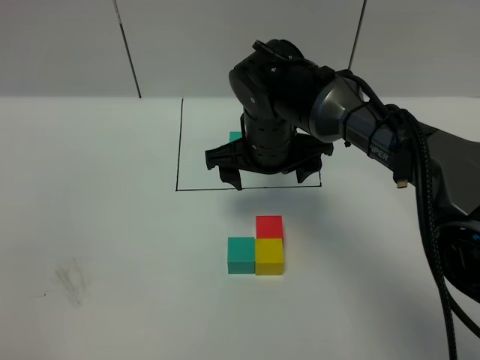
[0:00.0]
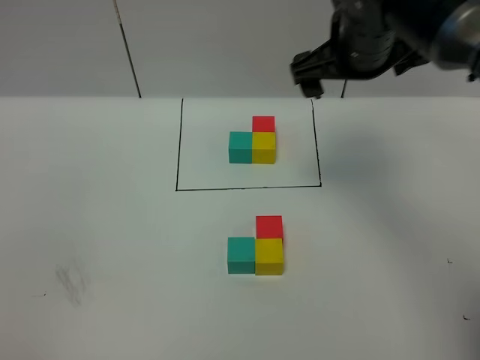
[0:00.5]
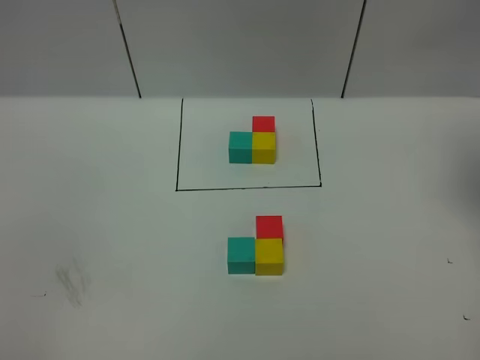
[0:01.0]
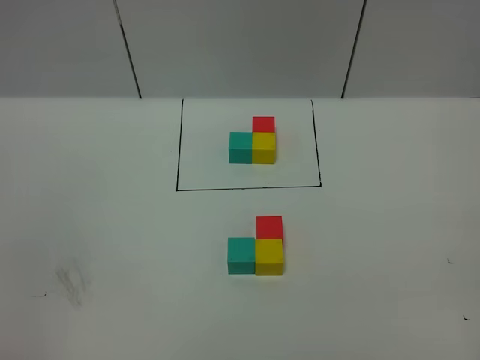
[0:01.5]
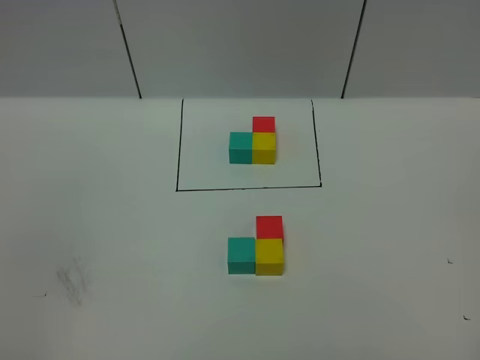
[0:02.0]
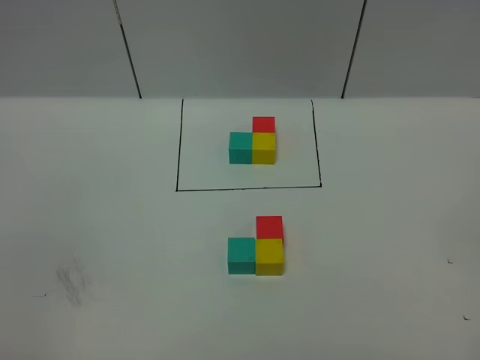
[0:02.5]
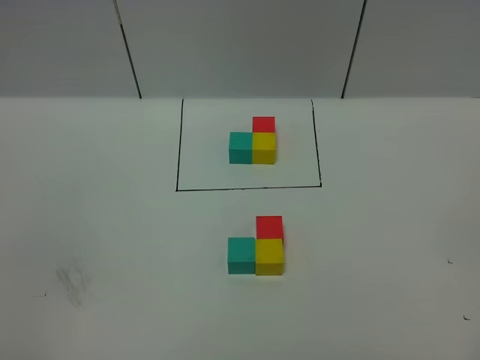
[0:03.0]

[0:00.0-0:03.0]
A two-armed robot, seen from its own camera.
Task of the whole recording: According to the building block template in front, assemble the scattered blocks together.
0:00.0 to 0:01.5: The right gripper heads to the right, backward and upward, covering about 40 cm.

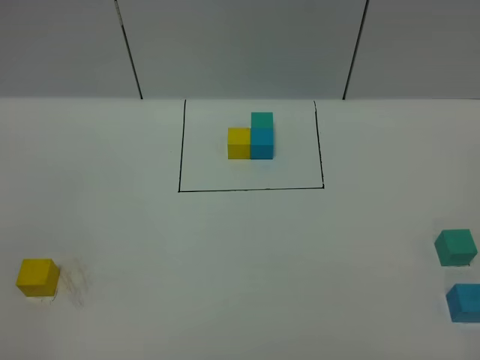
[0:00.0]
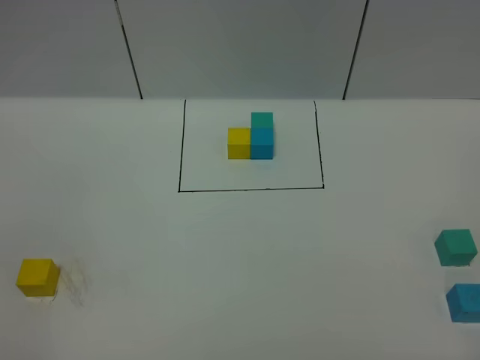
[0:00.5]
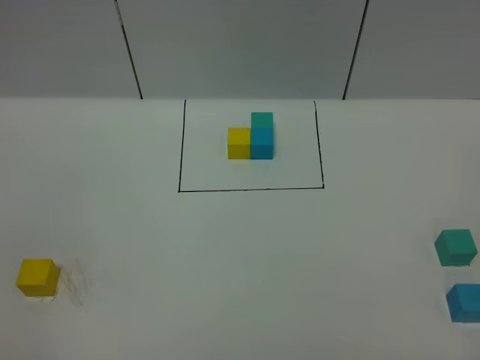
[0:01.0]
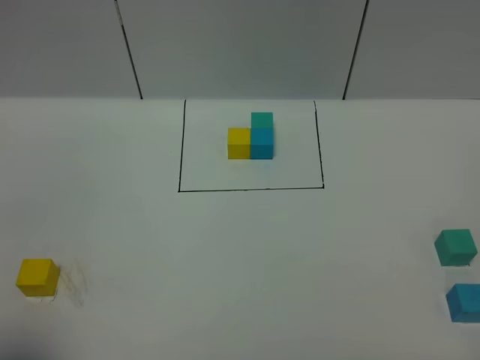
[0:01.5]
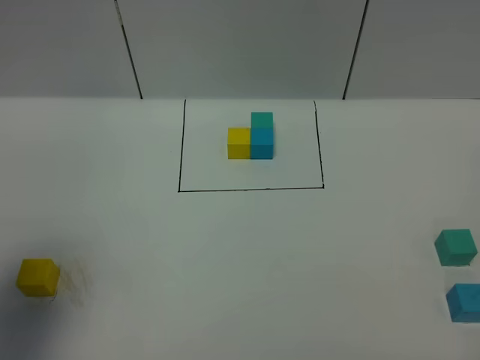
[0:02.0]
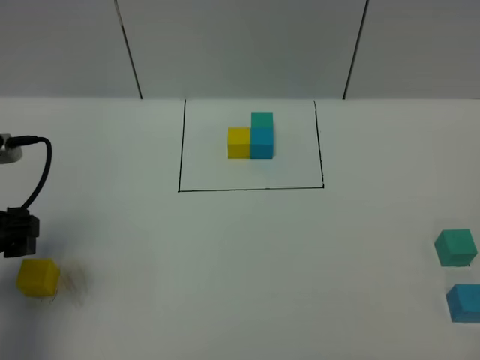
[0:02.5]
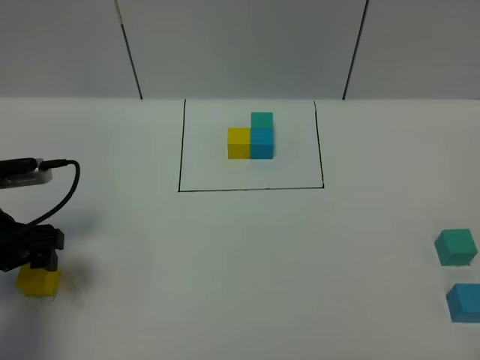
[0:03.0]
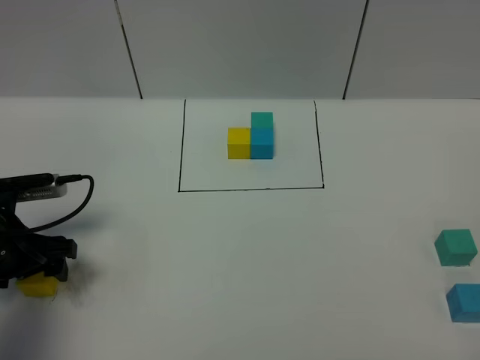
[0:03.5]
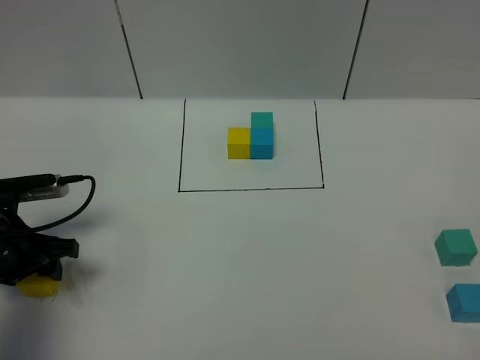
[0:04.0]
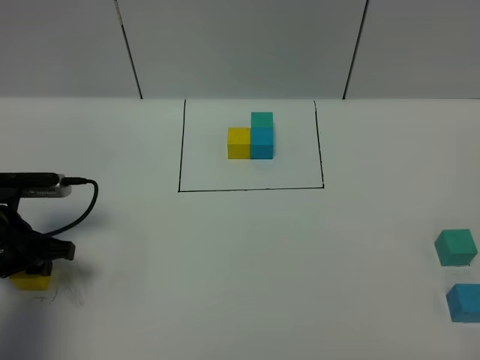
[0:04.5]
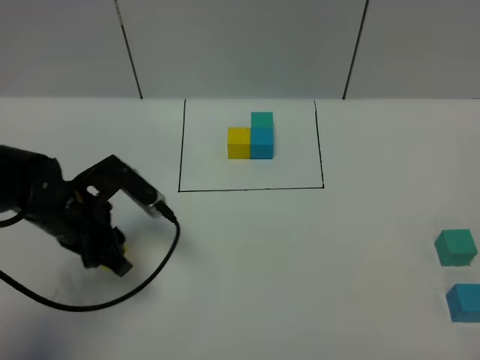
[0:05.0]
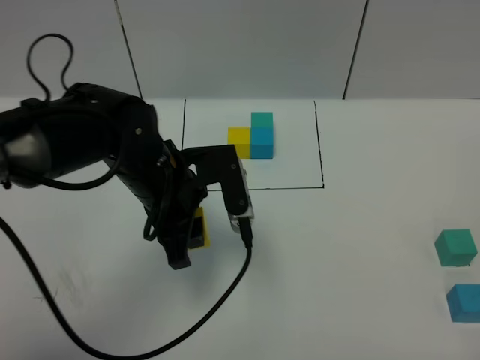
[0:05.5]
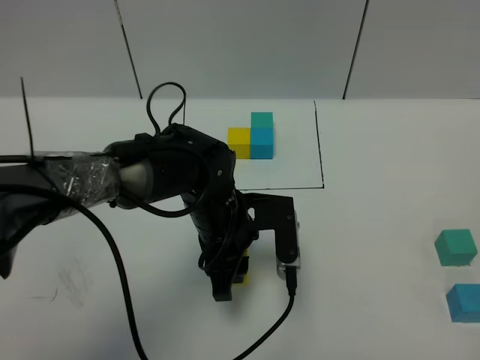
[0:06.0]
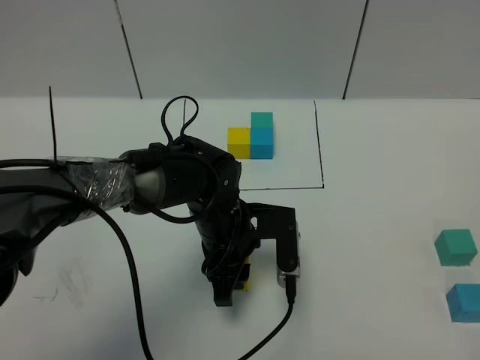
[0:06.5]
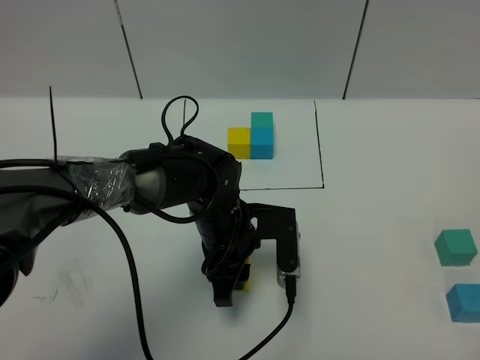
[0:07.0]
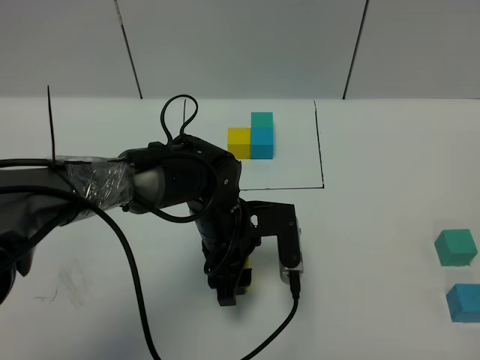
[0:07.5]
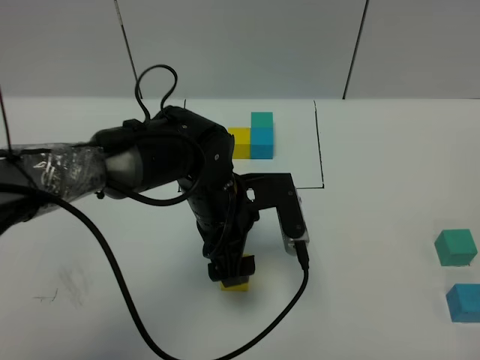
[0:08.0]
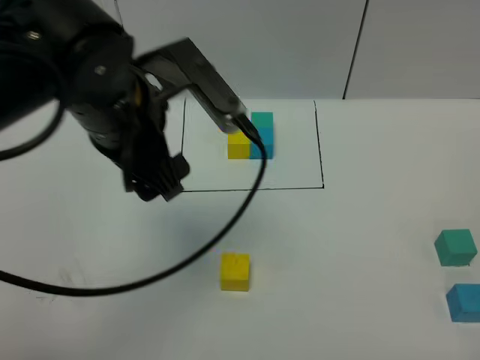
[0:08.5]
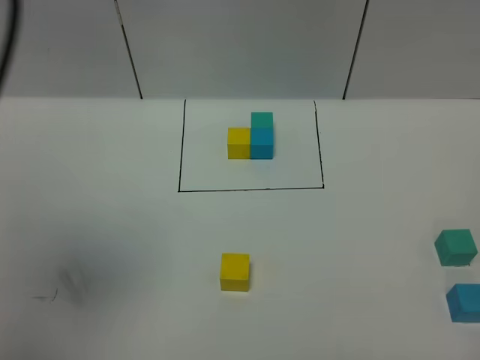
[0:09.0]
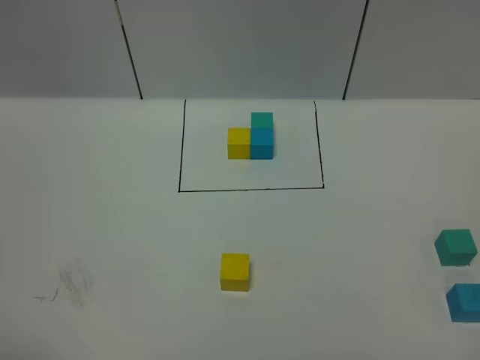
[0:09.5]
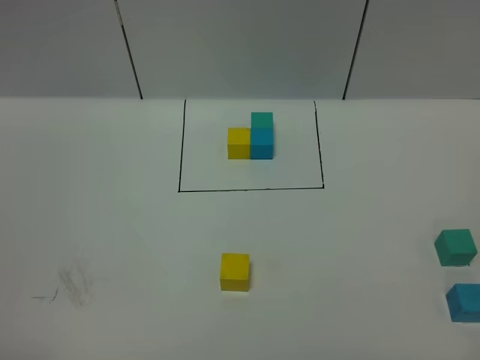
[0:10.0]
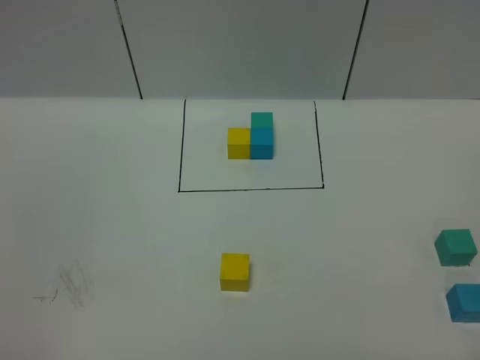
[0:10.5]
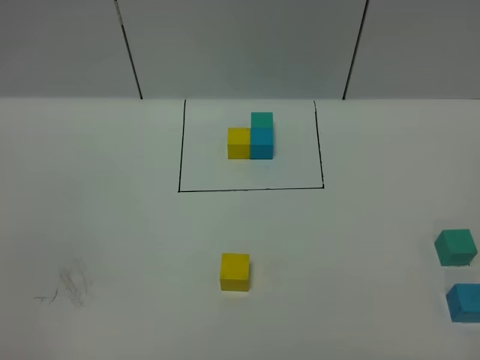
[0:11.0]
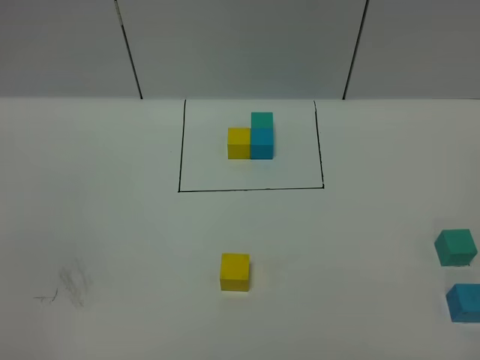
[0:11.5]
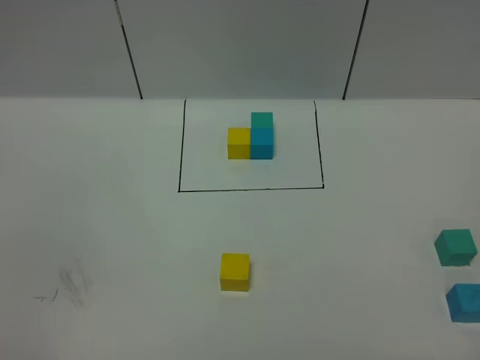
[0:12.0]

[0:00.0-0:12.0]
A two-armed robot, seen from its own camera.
Task of the whole recording: According to the building block template in front, assemble the scattered blocks together.
Step, 0:02.5 to 0:08.0: Put the yellow cube in the center of the table.
0:00.0 to 0:02.0: The left gripper moves forward, approximately 20 cm, and opens.
0:02.0 to 0:04.0: The left gripper is displaced downward and forward by some 20 cm, and closes.
0:04.0 to 0:06.0: The left gripper shifts about 25 cm to the right.
0:06.0 to 0:08.0: The left gripper opens up.
0:08.0 to 0:10.0: The left gripper heads backward, to the left and upward, covering about 50 cm.

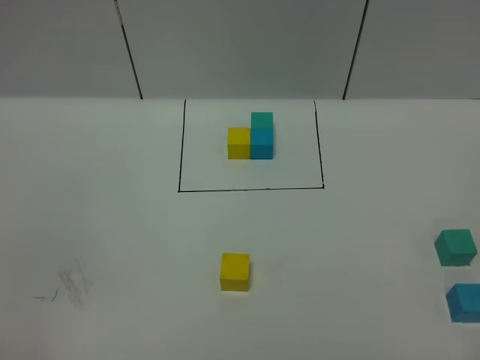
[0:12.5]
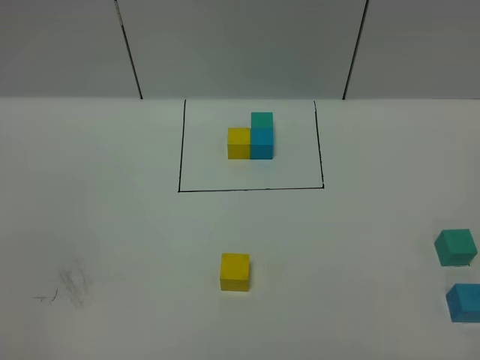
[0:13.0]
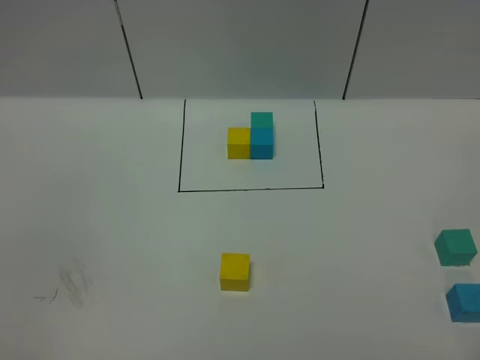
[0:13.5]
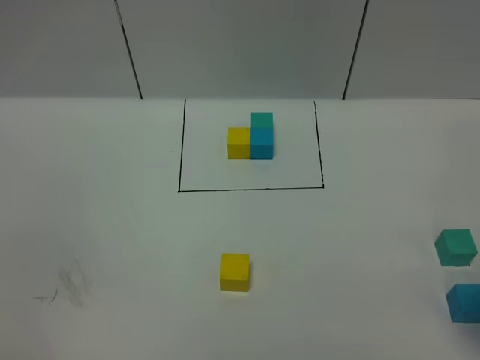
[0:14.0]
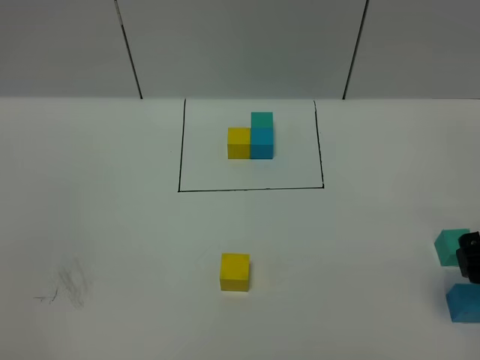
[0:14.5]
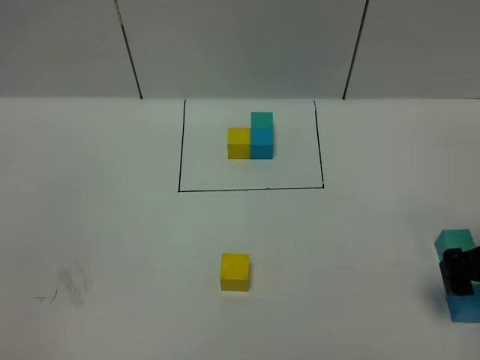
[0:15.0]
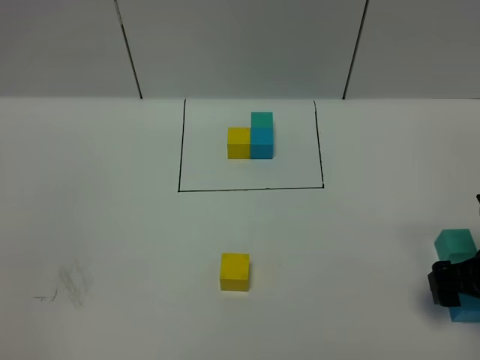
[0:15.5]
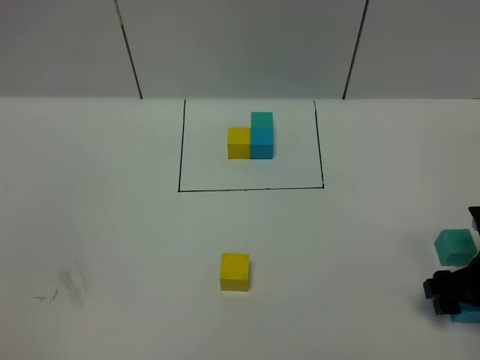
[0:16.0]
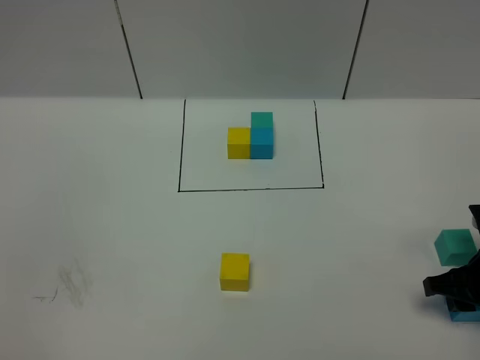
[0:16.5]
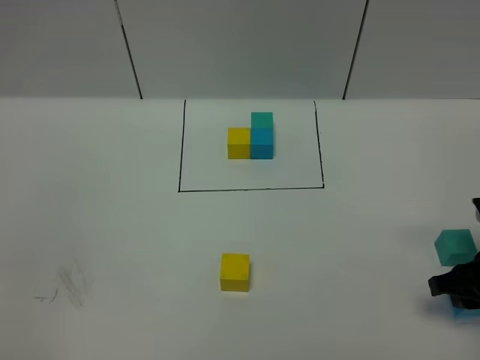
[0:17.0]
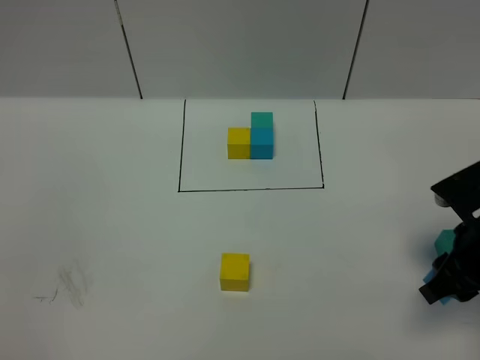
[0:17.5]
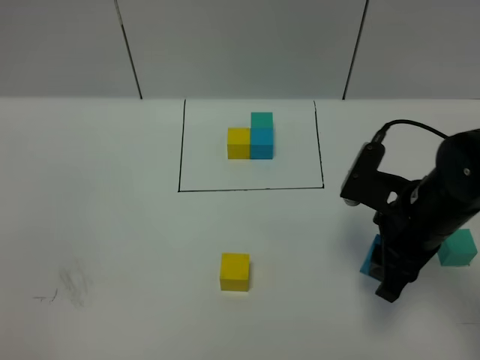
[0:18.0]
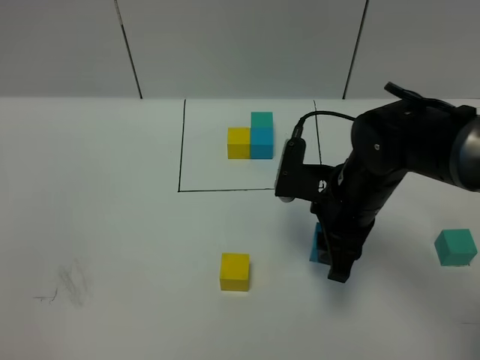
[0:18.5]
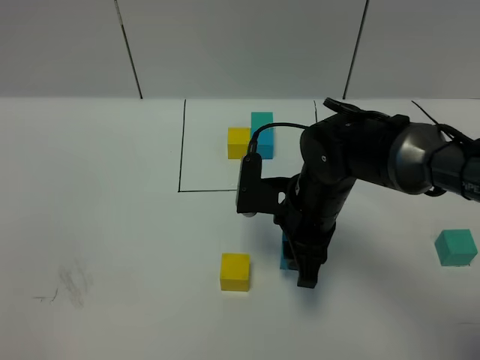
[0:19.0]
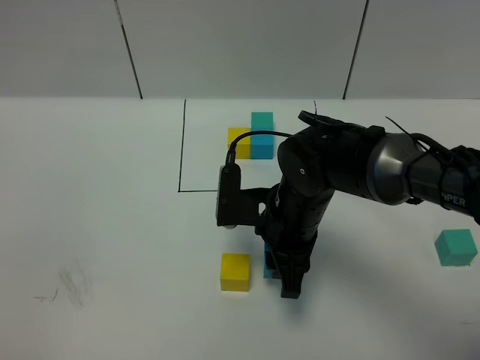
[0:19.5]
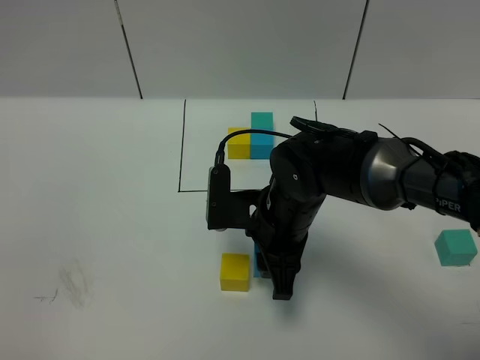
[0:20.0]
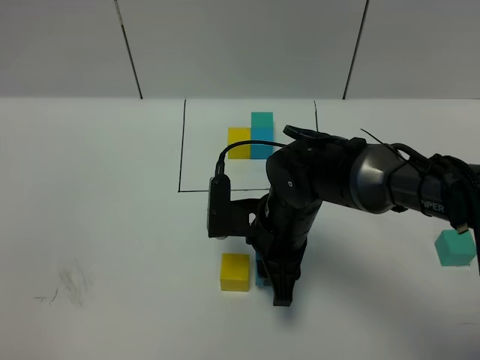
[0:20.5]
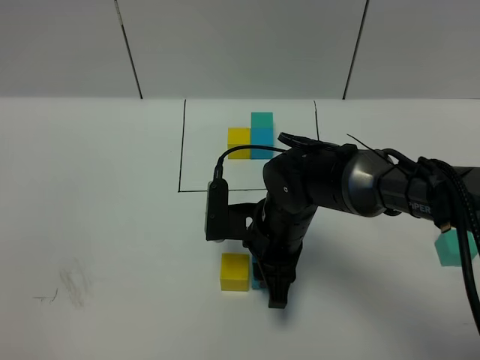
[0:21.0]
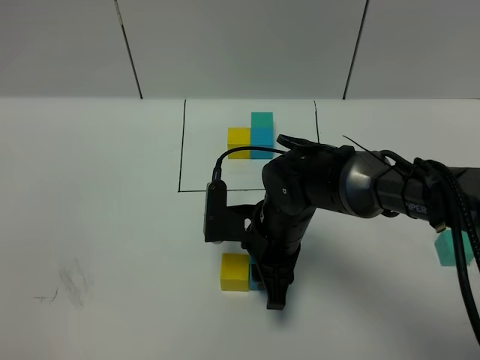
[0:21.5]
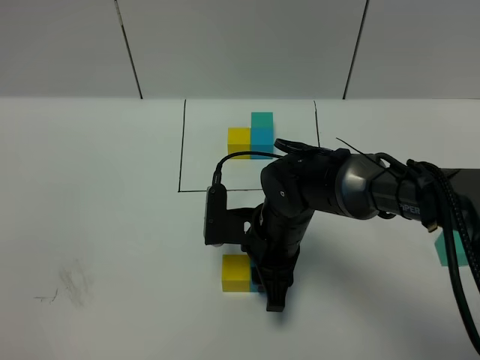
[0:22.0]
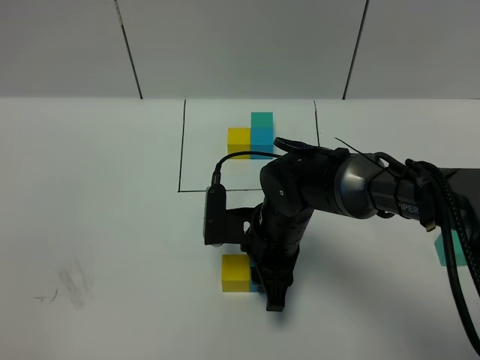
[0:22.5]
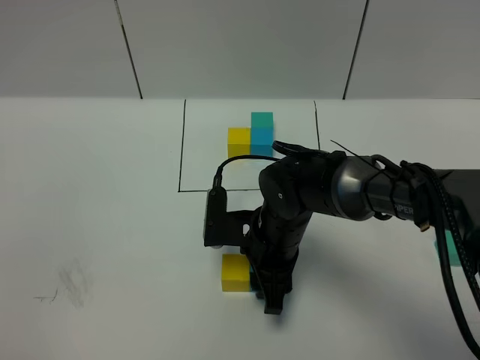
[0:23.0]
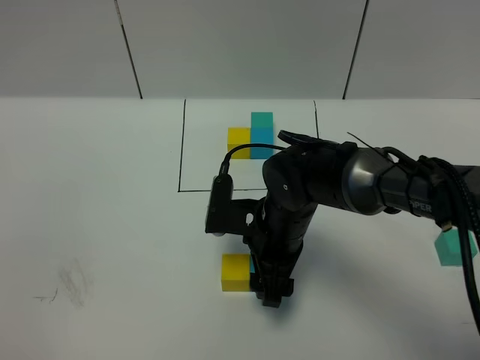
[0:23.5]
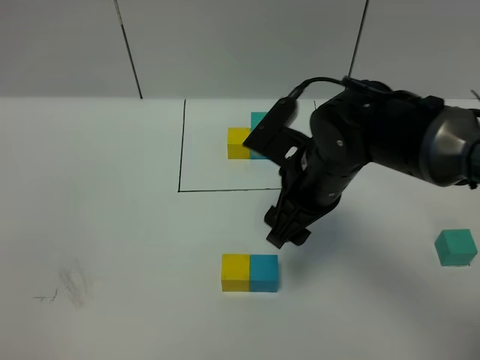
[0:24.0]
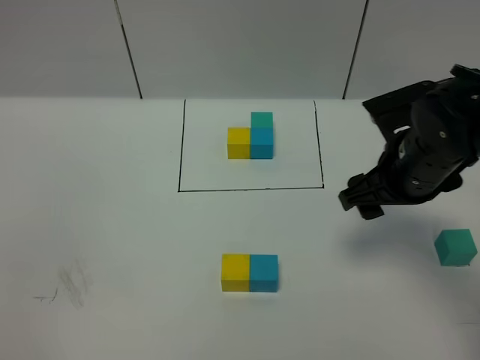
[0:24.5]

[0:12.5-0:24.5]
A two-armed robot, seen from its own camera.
Task of the whole recording: According to the building block template in front, assemble the scattered blocks together.
Step, 0:12.5 to 0:24.0: Put the blue cube on the right of the yellow cube.
0:12.5 to 0:14.5: The right gripper is displaced forward by some 25 cm.
0:14.5 to 0:16.5: The right gripper travels downward by approximately 10 cm, and closes.
0:16.5 to 0:18.5: The right gripper travels to the left by about 20 cm.
0:18.5 to 0:20.5: The right gripper heads to the left, covering roughly 10 cm.
0:20.5 to 0:22.5: The grippers make only small movements.
0:22.5 to 0:24.5: The right gripper travels to the right and upward by roughly 20 cm, and opens its fingers.
